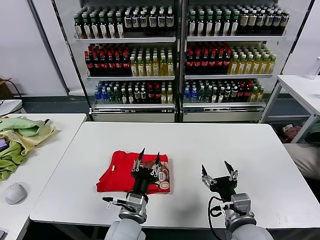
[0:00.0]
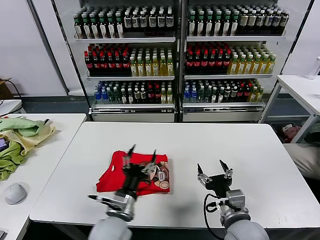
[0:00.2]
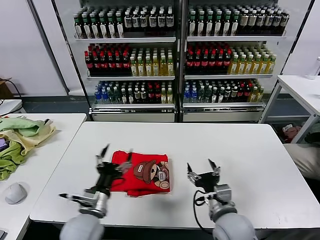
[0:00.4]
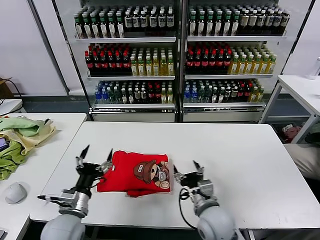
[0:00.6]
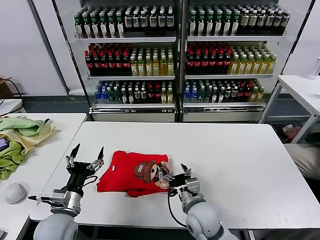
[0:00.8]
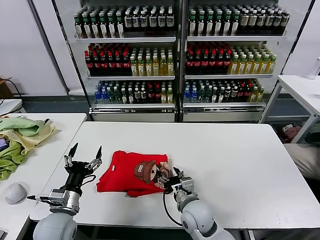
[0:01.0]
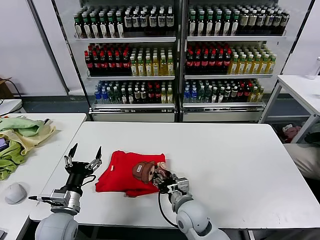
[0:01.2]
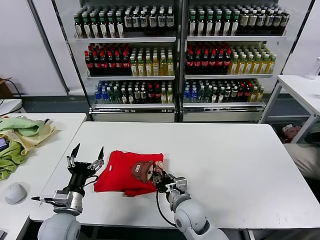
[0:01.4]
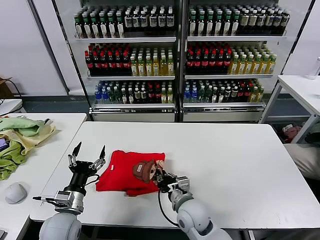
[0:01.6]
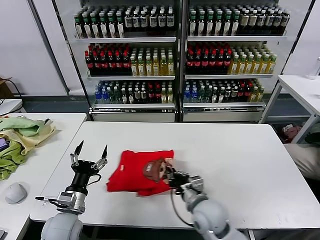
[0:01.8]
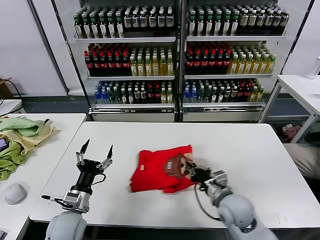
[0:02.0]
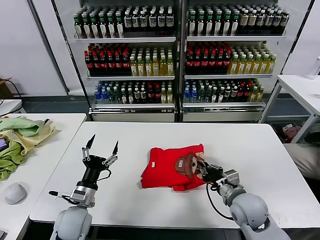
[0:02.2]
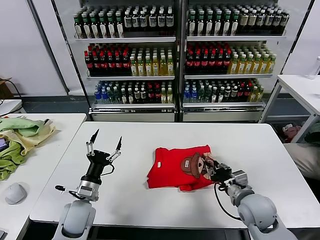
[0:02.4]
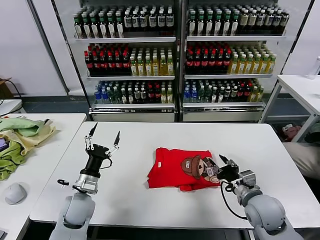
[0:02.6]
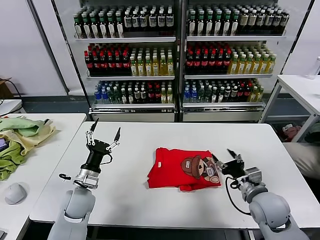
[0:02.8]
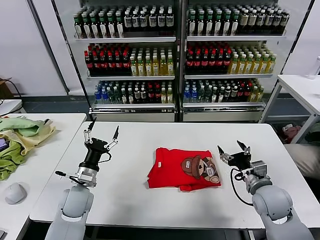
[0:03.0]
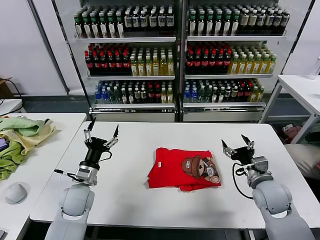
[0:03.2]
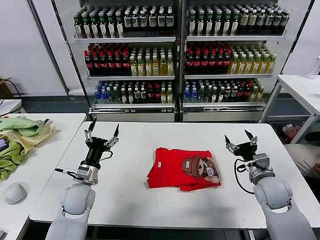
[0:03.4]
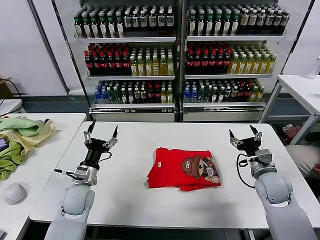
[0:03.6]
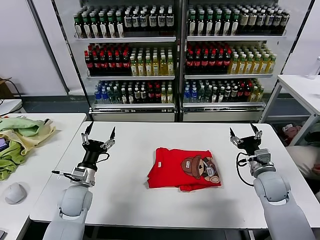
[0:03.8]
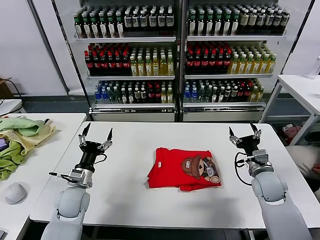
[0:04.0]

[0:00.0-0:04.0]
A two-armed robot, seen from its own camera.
Task of the whole recording: fold and organize the clothes.
Step, 0:00.2 to 0:02.6: Drag the clothes to the center of the table.
0:00.0 to 0:01.4: The left gripper moves to the left, some 20 cm, and opens, while the right gripper goes about 20 cm to the left, forward and downward, and closes up.
0:01.4 to 0:02.6: The left gripper is displaced forward by roughly 5 cm; the right gripper moves to the right, some 20 cm, and closes, then opens again.
0:02.6 to 0:04.0: The right gripper shifts about 10 cm forward and to the right, and opens.

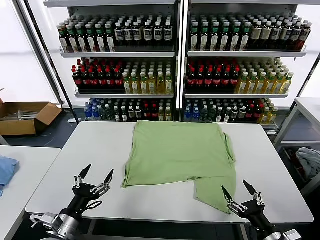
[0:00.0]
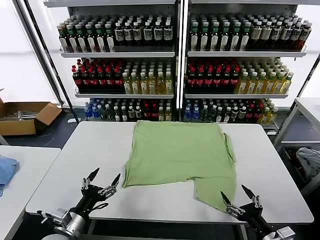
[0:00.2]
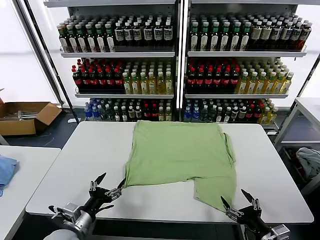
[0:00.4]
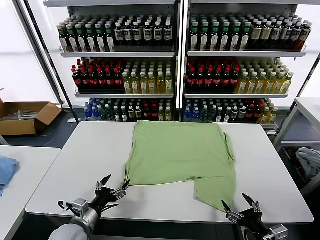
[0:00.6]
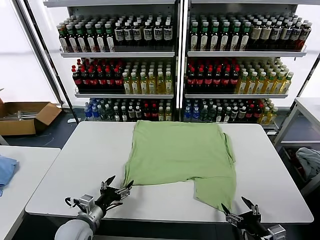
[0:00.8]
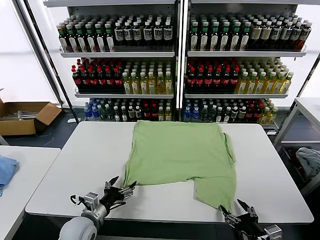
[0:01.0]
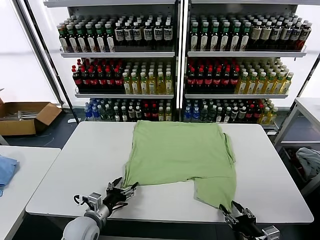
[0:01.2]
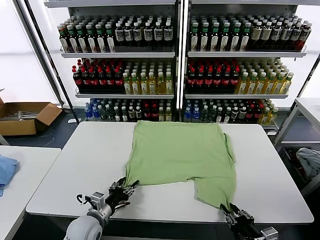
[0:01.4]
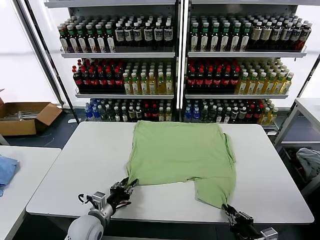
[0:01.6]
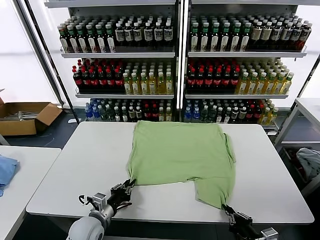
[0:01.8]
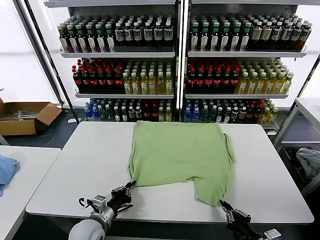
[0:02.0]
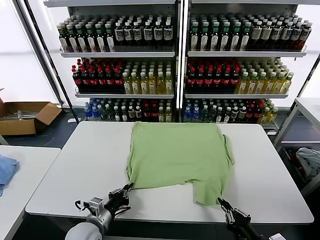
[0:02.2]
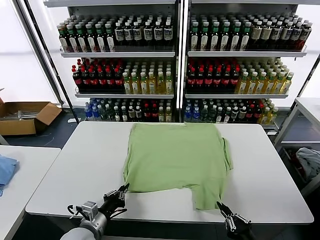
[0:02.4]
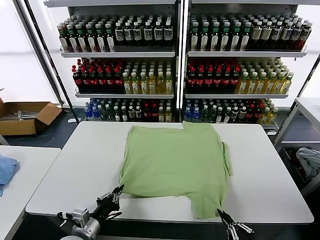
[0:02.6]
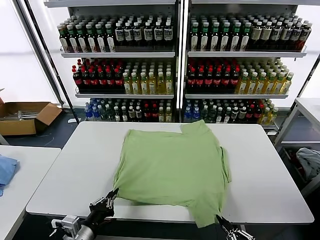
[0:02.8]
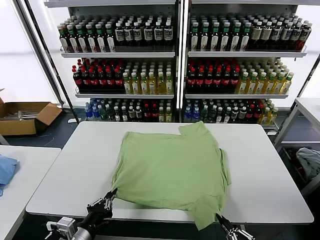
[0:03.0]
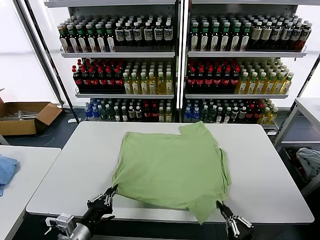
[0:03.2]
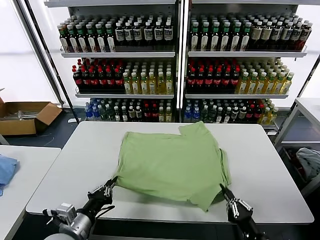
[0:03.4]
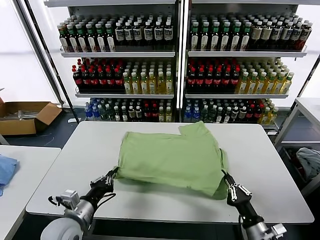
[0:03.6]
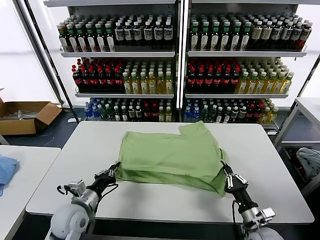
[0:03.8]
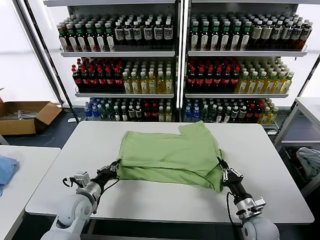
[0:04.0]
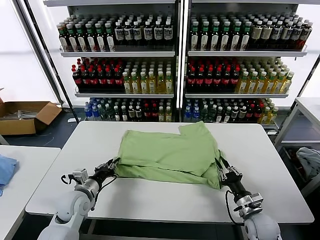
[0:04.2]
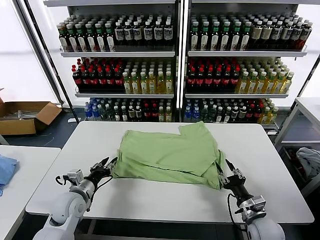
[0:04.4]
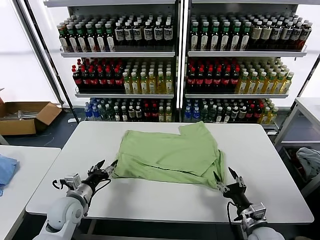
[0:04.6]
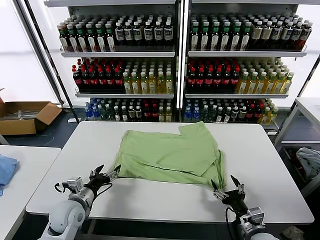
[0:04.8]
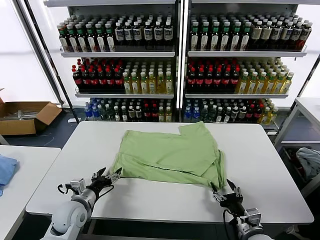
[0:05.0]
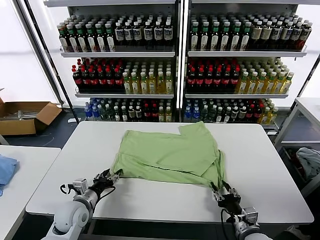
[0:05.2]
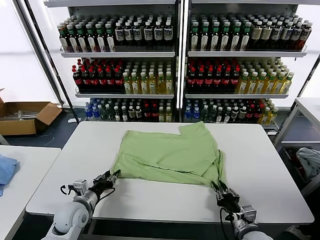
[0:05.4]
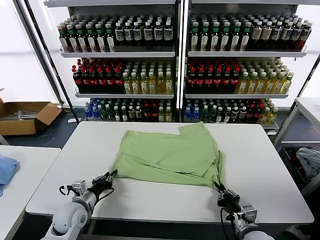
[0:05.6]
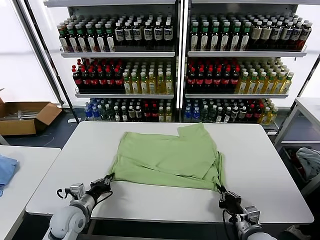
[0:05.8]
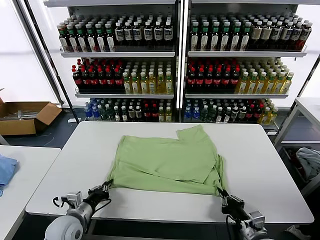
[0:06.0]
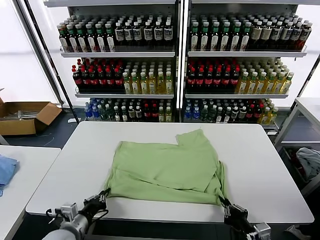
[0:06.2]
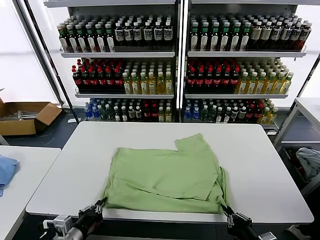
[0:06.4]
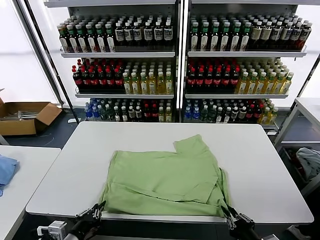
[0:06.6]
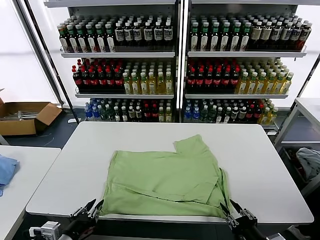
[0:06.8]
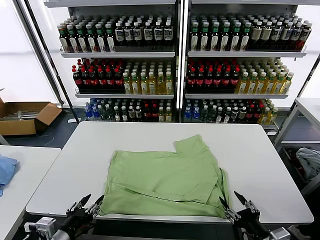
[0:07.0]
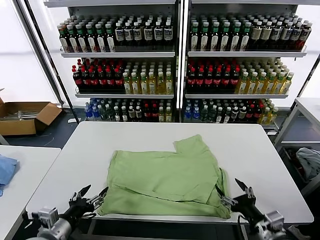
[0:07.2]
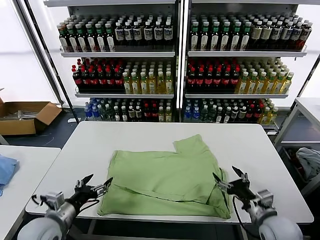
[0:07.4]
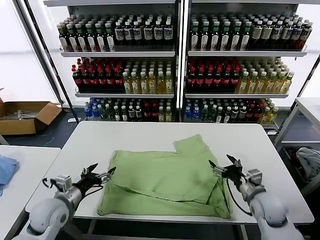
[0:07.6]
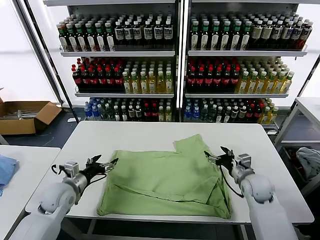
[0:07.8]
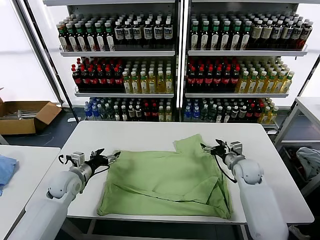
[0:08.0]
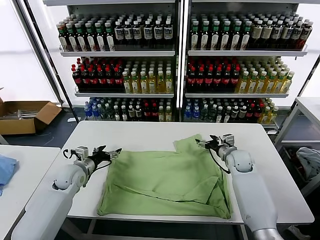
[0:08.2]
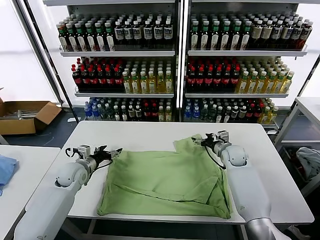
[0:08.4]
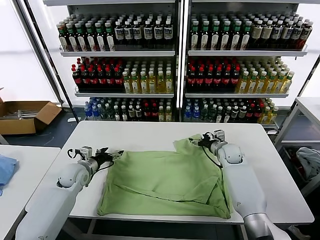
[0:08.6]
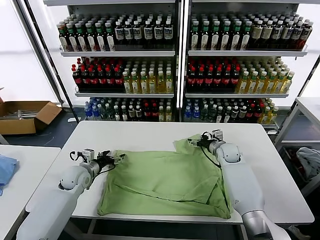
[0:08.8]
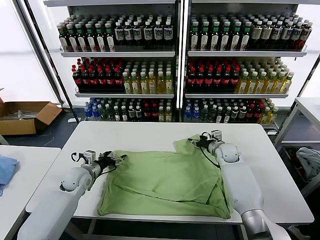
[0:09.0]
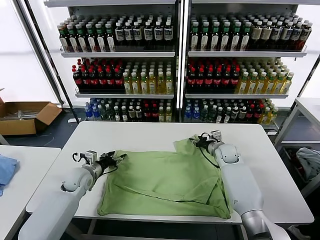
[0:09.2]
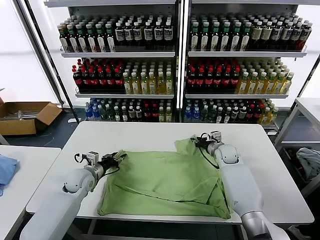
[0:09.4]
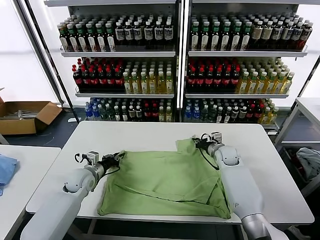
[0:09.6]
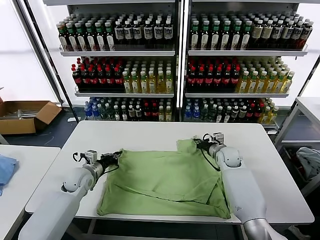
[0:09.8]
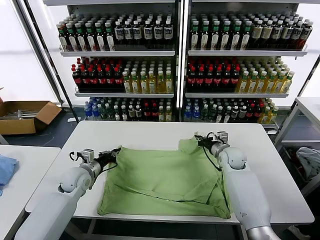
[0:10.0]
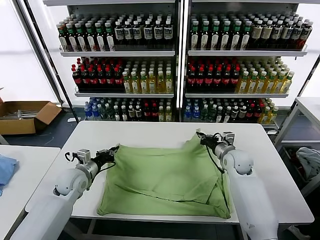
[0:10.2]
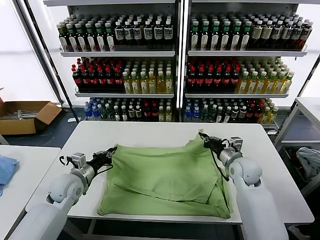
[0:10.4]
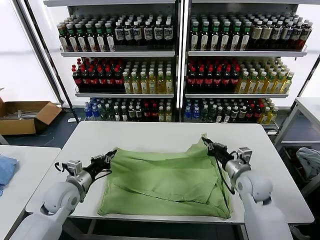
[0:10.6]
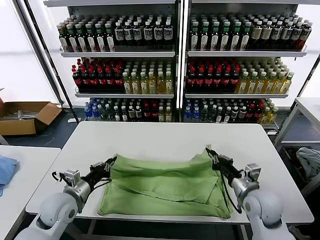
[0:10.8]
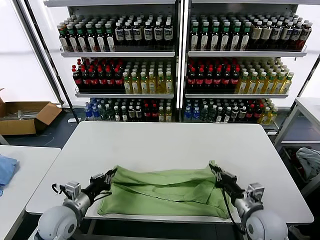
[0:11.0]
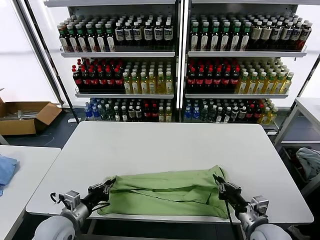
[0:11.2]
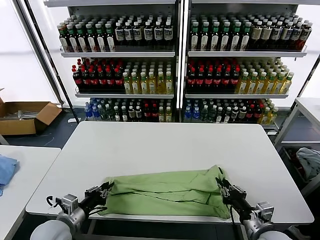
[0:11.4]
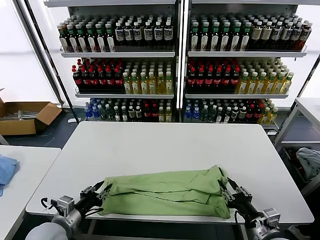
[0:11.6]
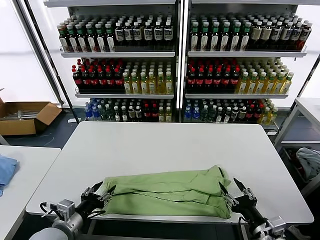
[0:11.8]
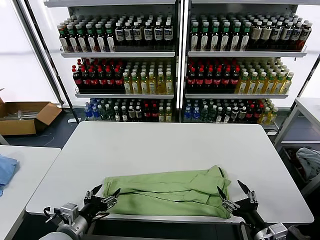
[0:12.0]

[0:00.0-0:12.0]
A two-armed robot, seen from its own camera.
Task of the whole recording: fold and organize the clothes.
Step, 0:00.0 to 0:01.8: use both grippers simultaneously to clamp the lower edge of the clothing fabric.
Step, 0:02.0 to 0:04.2: use both grippers to drag the lower edge of the fabric forward and fold it over the upper edge.
Step, 0:04.6 to 0:06.8: Drag the clothes downward with both gripper.
Step, 0:07.0 to 0:09.6: use both grippers simultaneously to clamp the upper edge of the clothing fabric.
Step, 0:09.8 to 0:11.6: use both grippers to drag the upper edge of the fabric backward and fold it over the lower edge.
0:01.6 to 0:03.0: The right gripper is displaced backward by roughly 5 cm. The left gripper travels backward and upward by approximately 15 cm, and closes.
0:03.0 to 0:04.4: Both grippers travel together forward, roughly 15 cm. The left gripper opens its fingers. Meanwhile the right gripper opens up.
0:04.4 to 0:06.0: Both grippers move backward, approximately 5 cm. The left gripper closes; the right gripper closes up.
0:06.0 to 0:07.6: The left gripper shifts roughly 5 cm upward, goes backward and returns, roughly 10 cm each way, and opens. Meanwhile the right gripper goes about 15 cm forward, and opens up.
0:07.6 to 0:09.0: The grippers both shift forward by about 15 cm.
0:09.0 to 0:10.4: The left gripper moves backward, about 5 cm, and closes its fingers, while the right gripper moves backward and upward, approximately 15 cm, and closes up.
0:10.4 to 0:12.0: Both grippers move backward, approximately 20 cm. The right gripper opens its fingers, while the left gripper opens up.

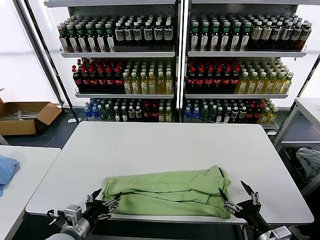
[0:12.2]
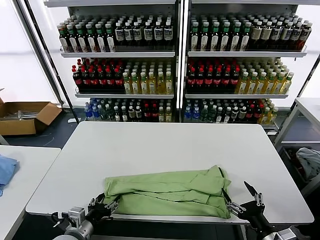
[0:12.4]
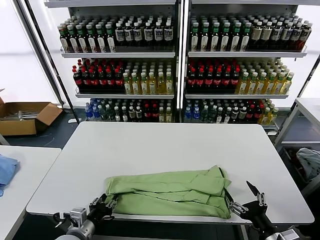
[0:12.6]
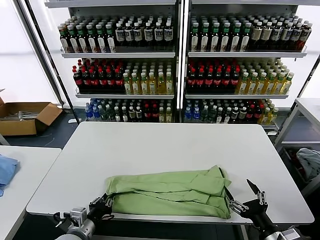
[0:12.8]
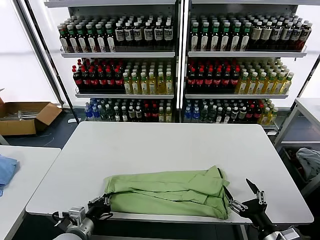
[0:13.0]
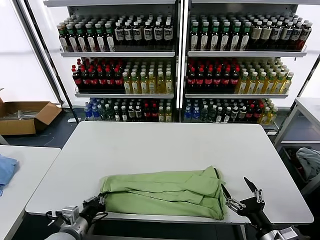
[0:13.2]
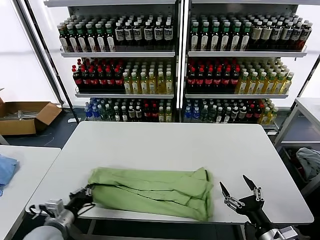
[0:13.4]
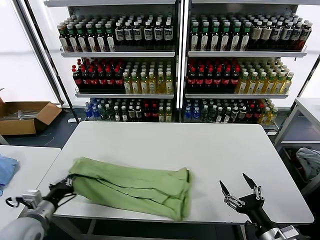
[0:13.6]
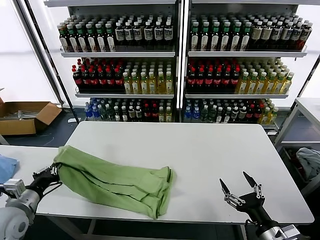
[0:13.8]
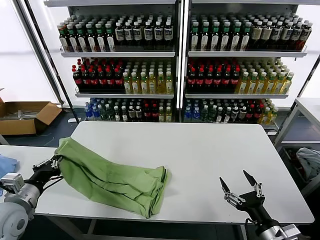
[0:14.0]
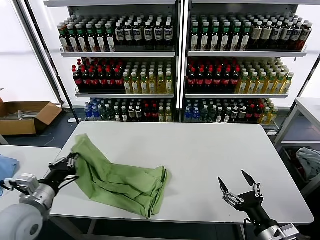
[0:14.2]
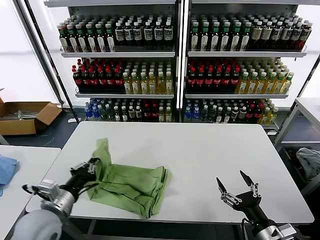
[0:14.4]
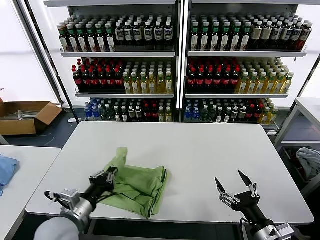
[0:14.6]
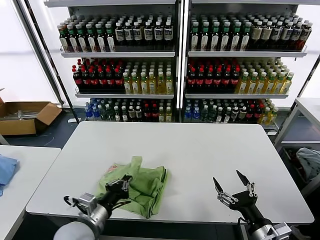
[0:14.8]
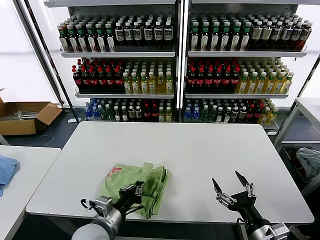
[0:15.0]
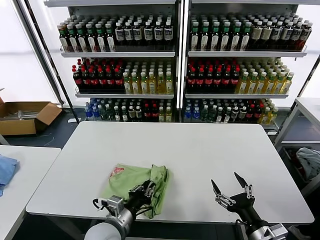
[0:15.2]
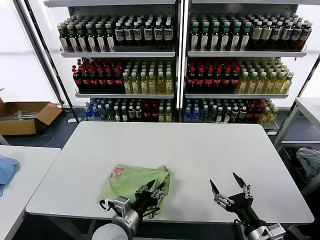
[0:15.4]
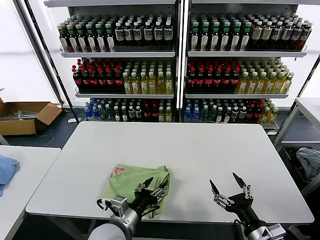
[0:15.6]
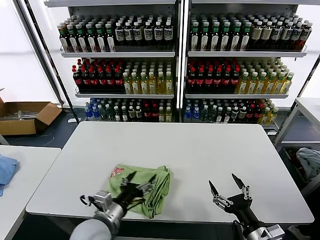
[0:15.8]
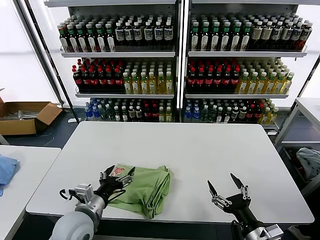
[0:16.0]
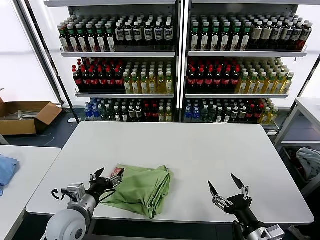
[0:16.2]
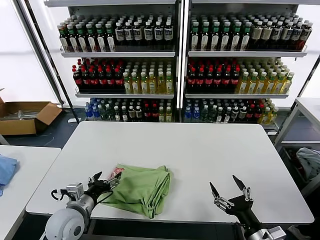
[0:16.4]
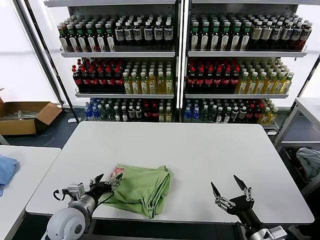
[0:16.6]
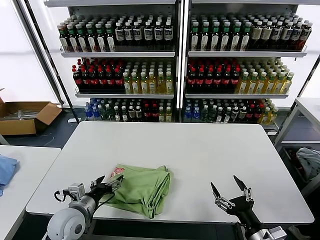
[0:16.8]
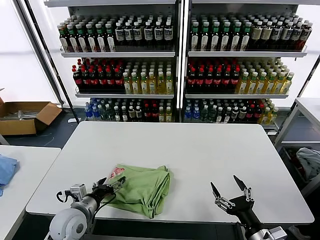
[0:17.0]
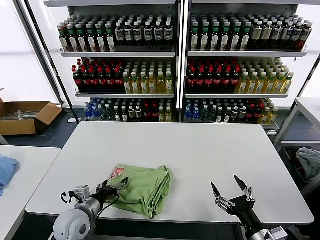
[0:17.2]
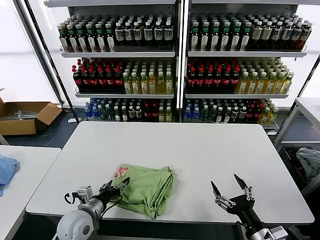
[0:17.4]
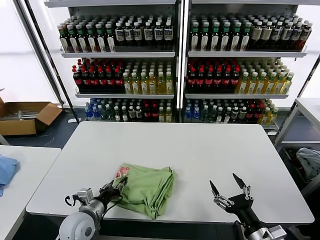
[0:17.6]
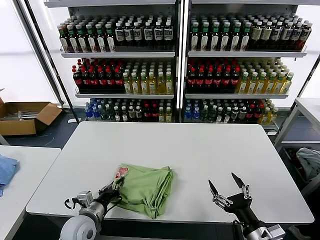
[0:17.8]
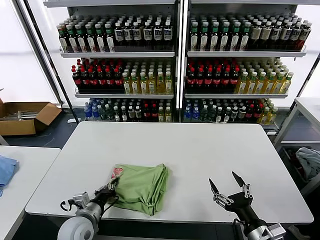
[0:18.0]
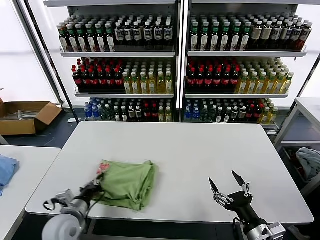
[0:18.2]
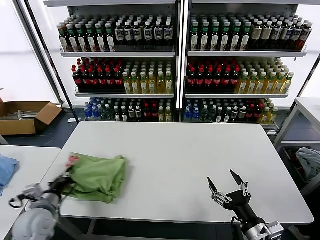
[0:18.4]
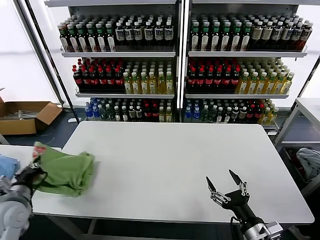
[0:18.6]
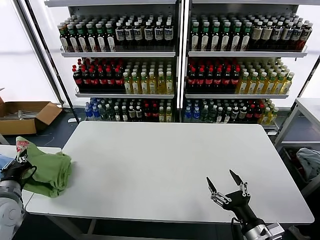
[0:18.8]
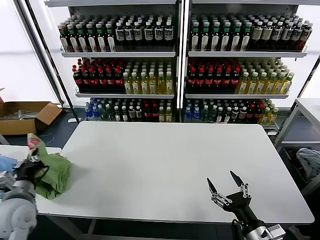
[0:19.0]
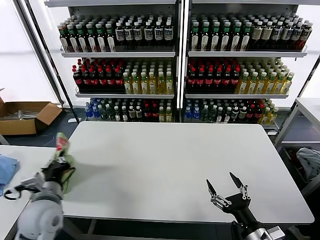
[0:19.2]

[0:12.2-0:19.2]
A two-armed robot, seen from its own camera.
Task of the whole recording: fold and organize the clothes.
Step, 0:12.2 to 0:12.8: use the left gripper to clamp the left edge of the fabric.
Step, 0:13.0 to 0:15.4: use the left gripper to drag the left edge of the fabric to the left and folds it over the right edge.
0:12.2 to 0:13.6: The left gripper is displaced to the left by approximately 10 cm, and closes up.
0:13.6 to 0:15.0: The left gripper is displaced to the right by about 20 cm.
0:15.0 to 0:16.4: The left gripper is displaced to the left by approximately 10 cm, and opens.
0:16.4 to 0:17.8: The left gripper travels downward by approximately 5 cm, and closes its fingers.
0:17.8 to 0:19.2: The left gripper shifts roughly 15 cm upward and to the left.
